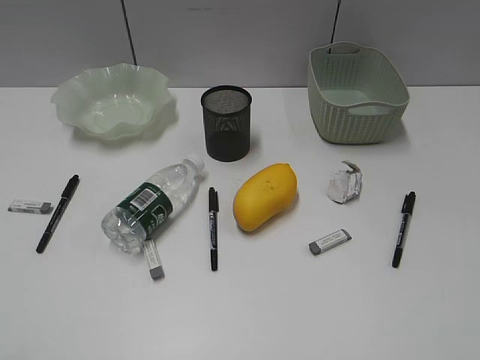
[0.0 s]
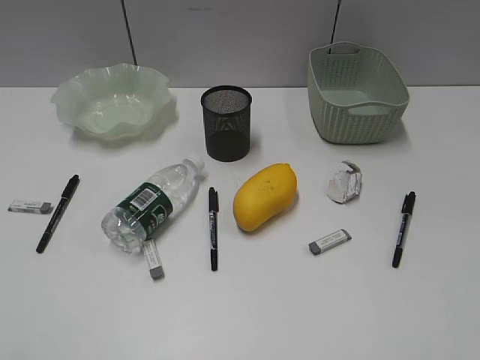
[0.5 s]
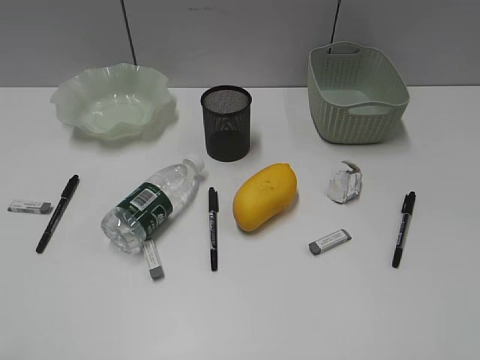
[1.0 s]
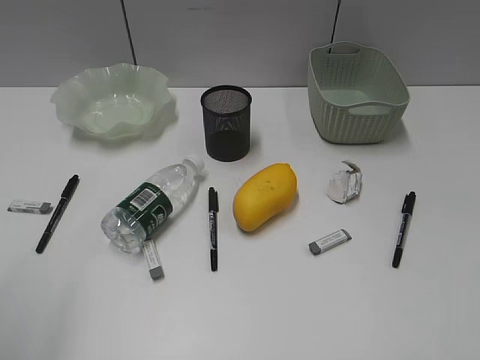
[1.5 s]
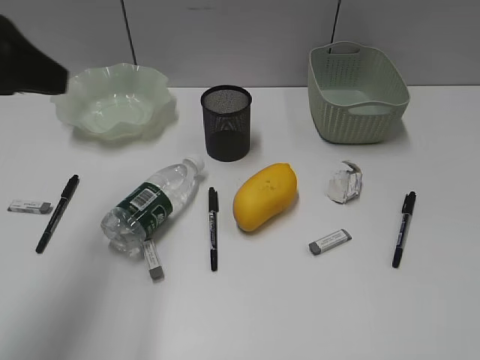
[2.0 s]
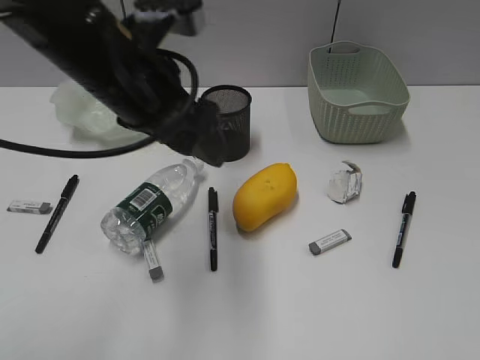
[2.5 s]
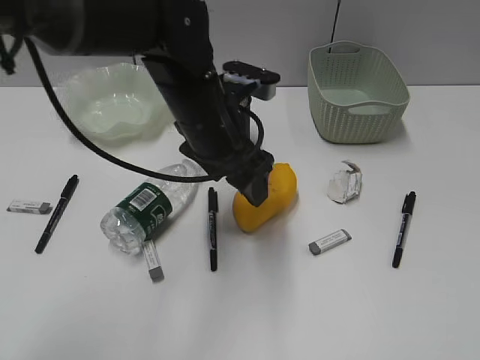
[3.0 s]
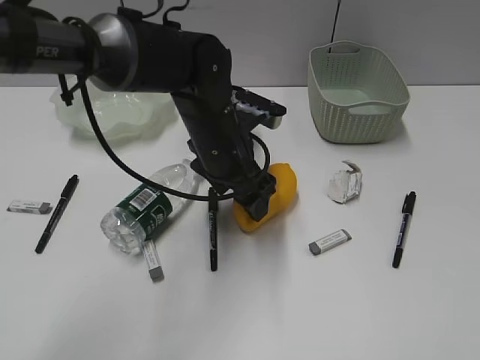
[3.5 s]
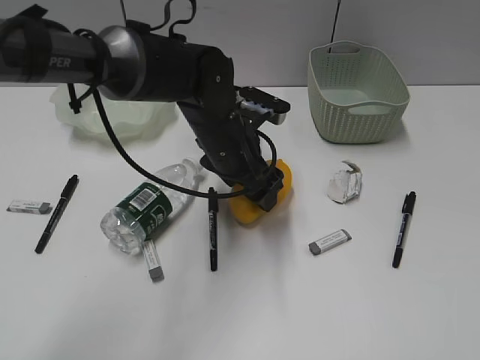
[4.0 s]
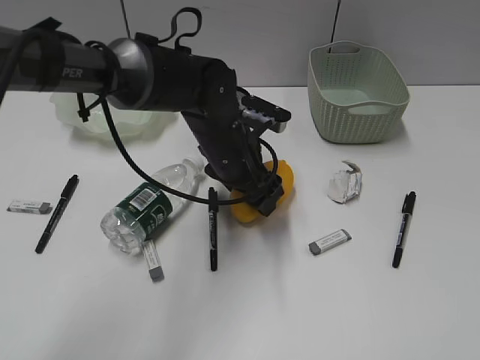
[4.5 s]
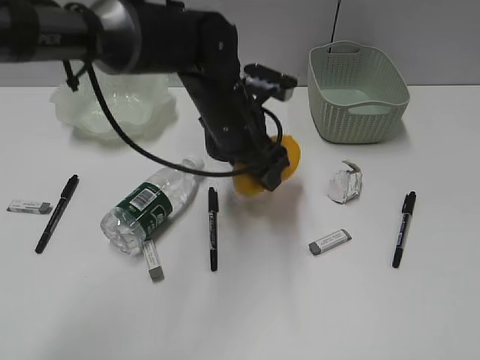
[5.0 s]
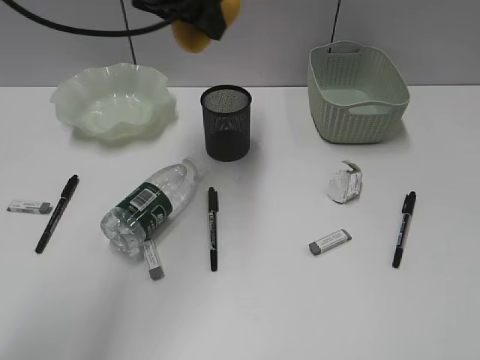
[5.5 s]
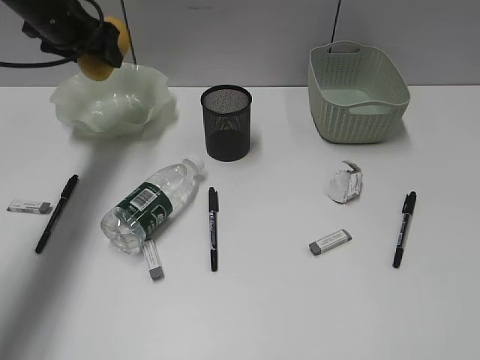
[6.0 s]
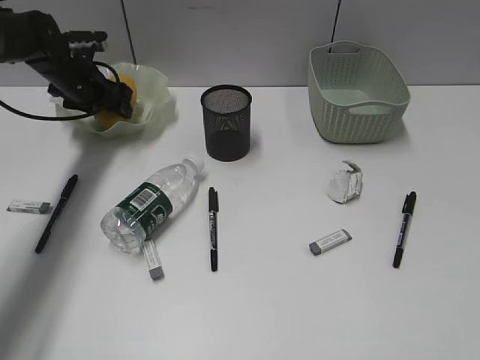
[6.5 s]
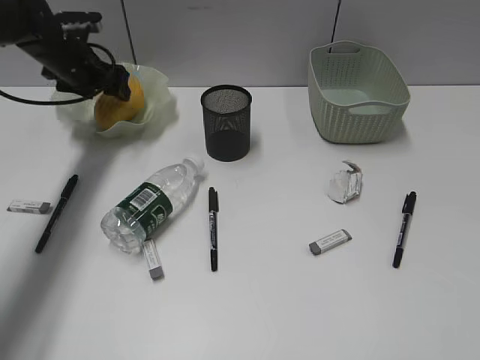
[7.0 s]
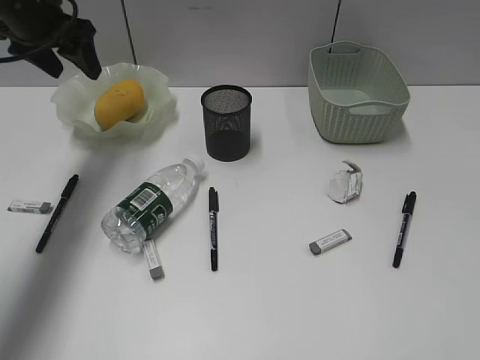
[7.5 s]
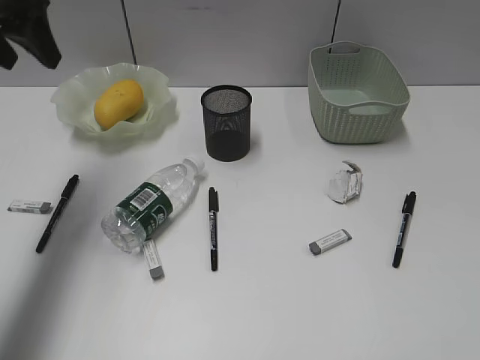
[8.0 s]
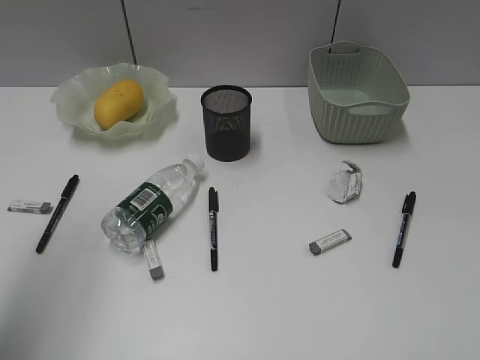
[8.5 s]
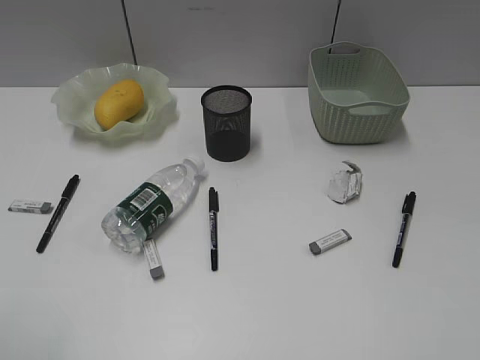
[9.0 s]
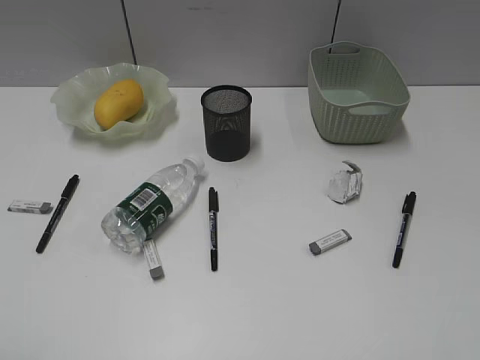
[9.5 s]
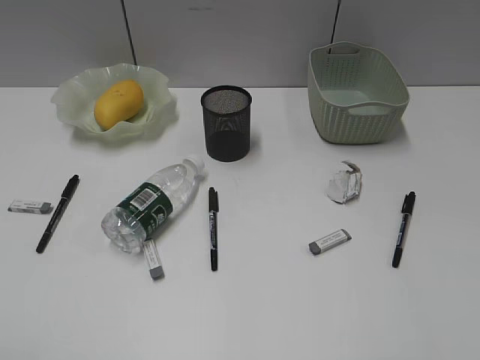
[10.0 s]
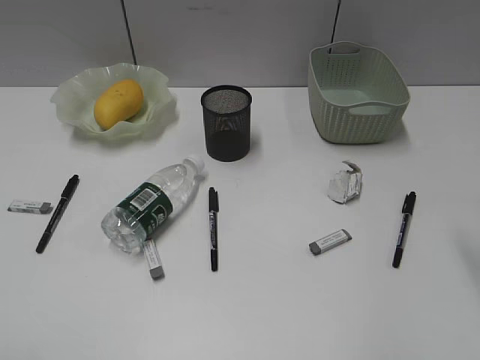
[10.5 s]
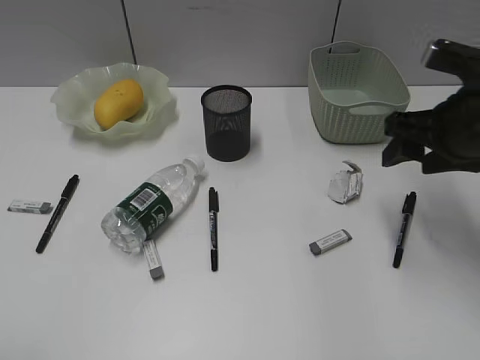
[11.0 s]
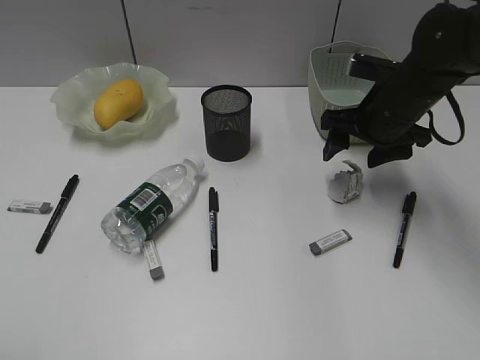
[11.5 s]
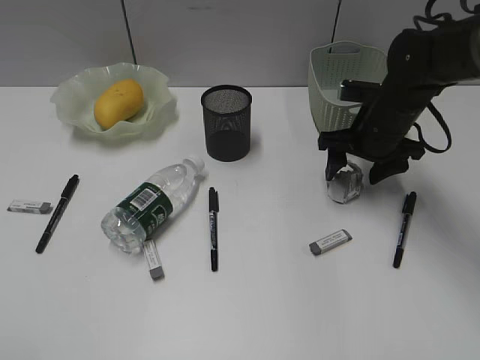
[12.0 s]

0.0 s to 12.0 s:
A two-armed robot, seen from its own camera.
Step, 1.5 to 4.5 s: Grasp the mango with left gripper.
Step, 5.0 to 7.0 s: Place the mango in the plate with left gripper.
2.0 to 4.0 s: The left gripper heads to the right, downward and forward, covering roughly 30 cm.
4.0 to 6.0 s: The left gripper travels to the left, forward and upward by roughly 30 cm.
6.0 to 8.0 s: The left gripper heads backward and upward, covering about 15 cm.
8.0 to 10.0 s: The left gripper travels backward by roughly 35 cm.
10.0 to 12.0 s: The right gripper moves forward and downward, roughly 35 cm.

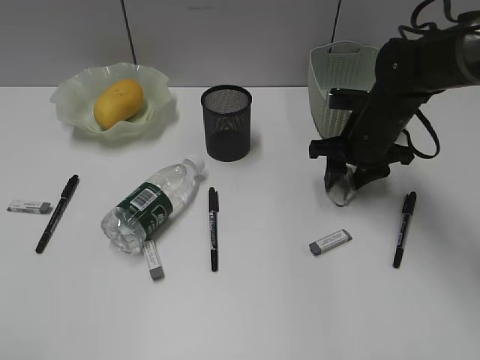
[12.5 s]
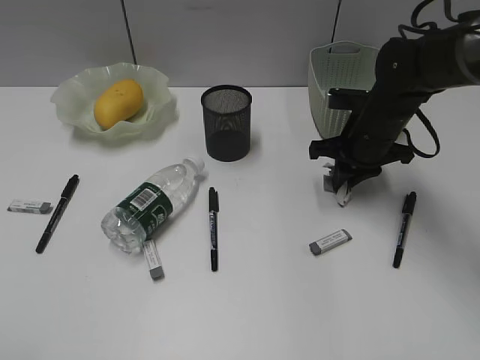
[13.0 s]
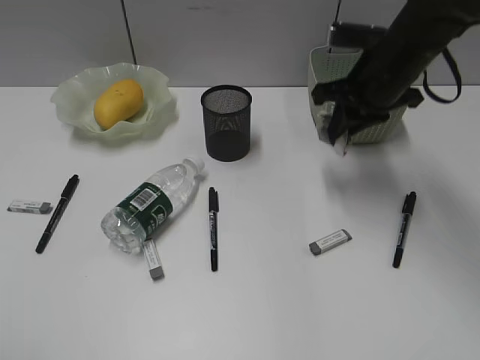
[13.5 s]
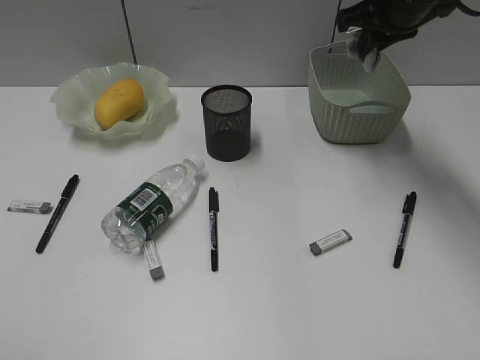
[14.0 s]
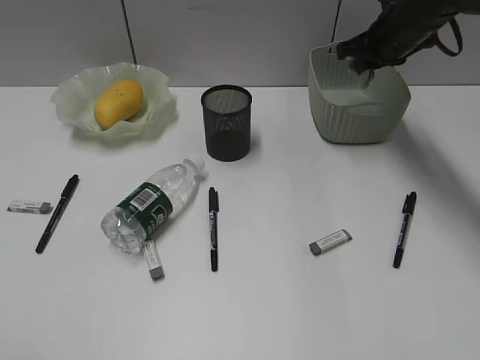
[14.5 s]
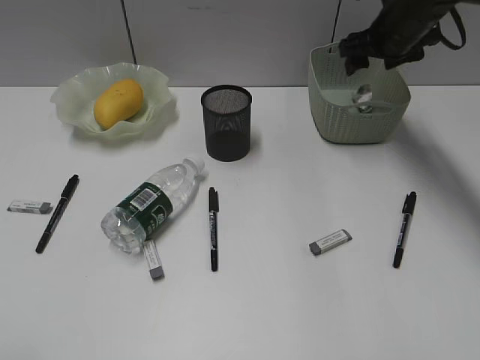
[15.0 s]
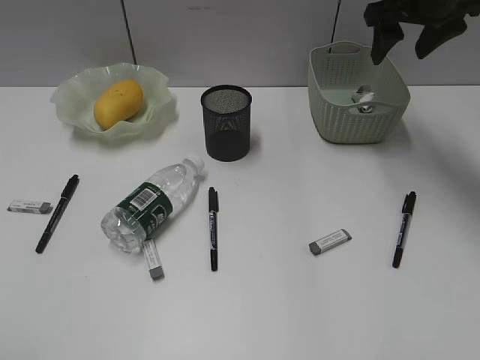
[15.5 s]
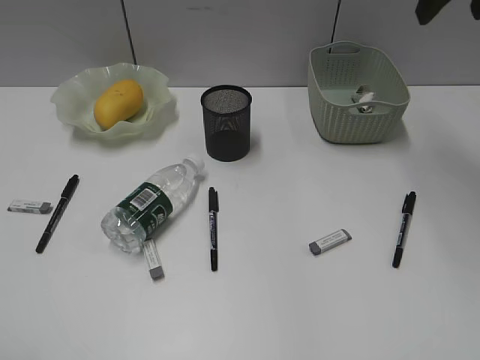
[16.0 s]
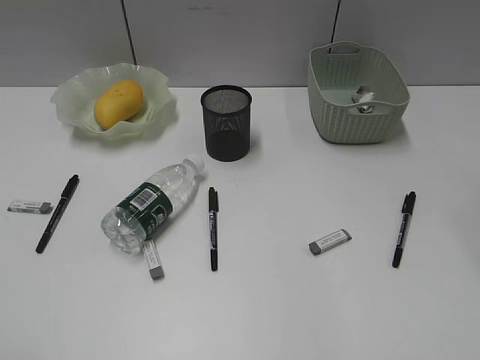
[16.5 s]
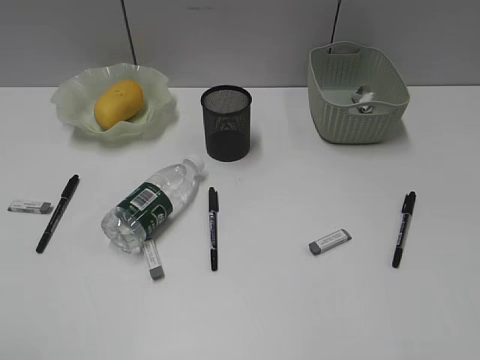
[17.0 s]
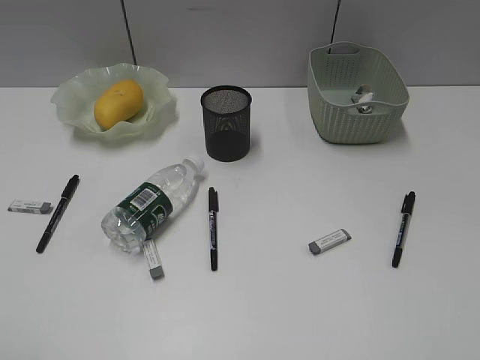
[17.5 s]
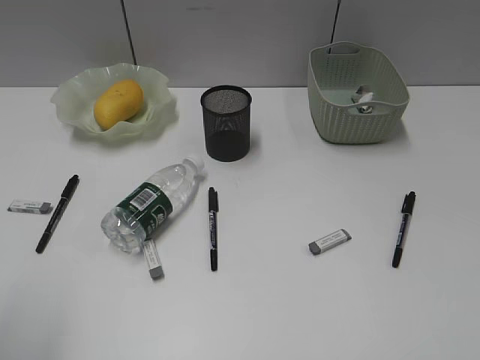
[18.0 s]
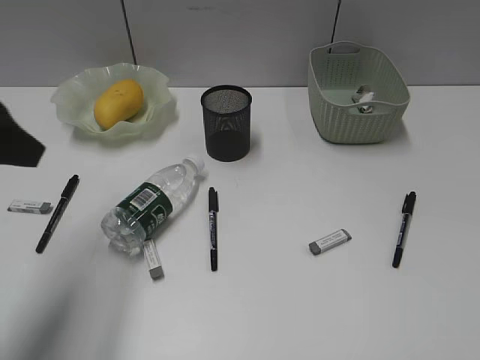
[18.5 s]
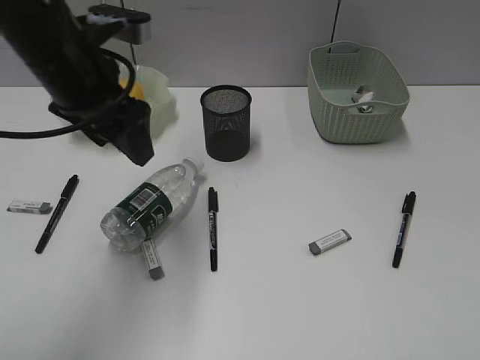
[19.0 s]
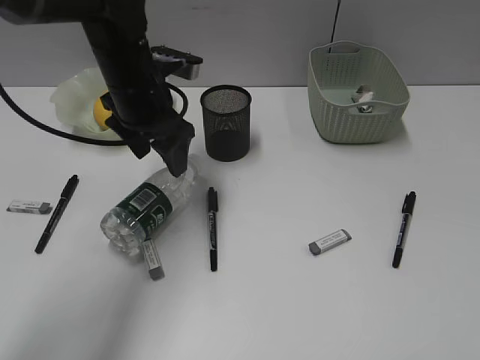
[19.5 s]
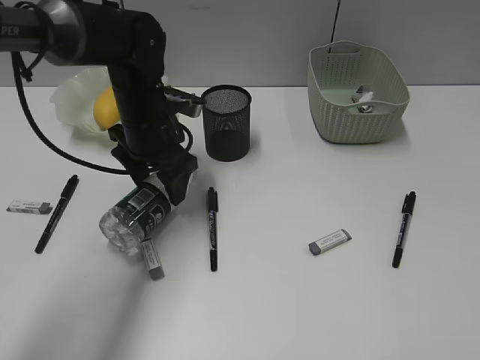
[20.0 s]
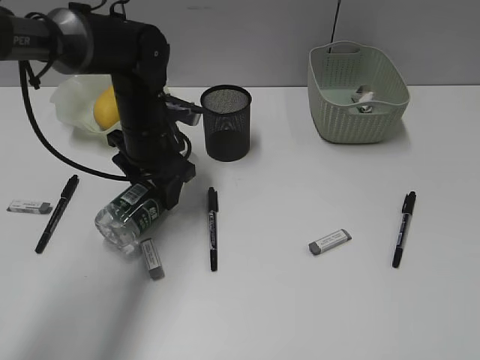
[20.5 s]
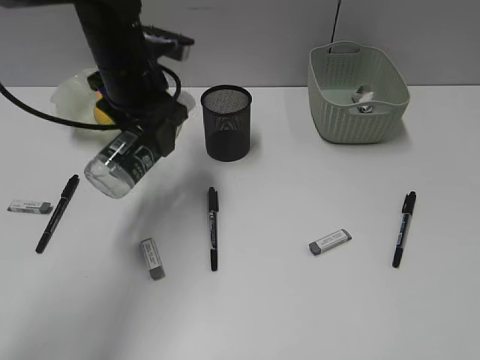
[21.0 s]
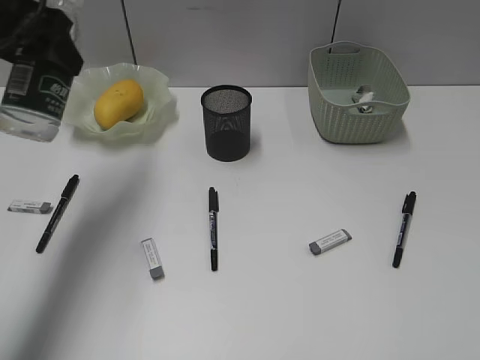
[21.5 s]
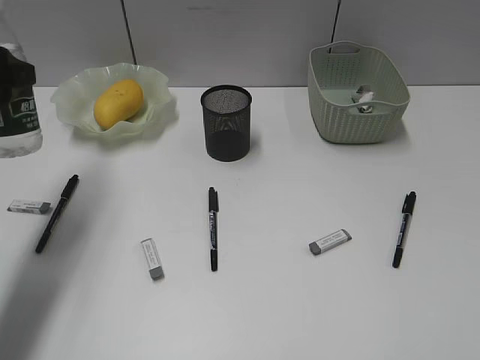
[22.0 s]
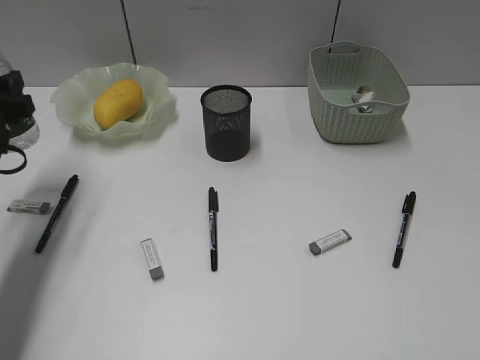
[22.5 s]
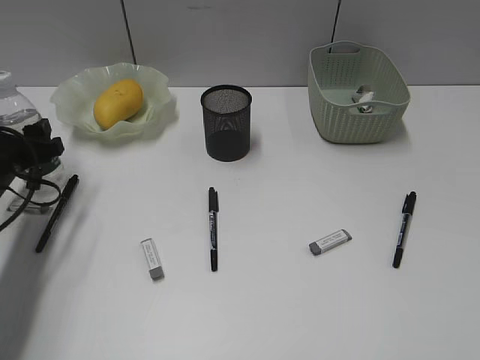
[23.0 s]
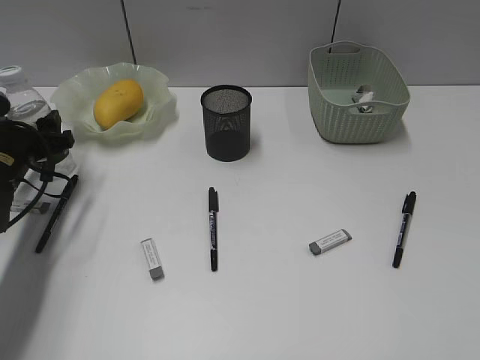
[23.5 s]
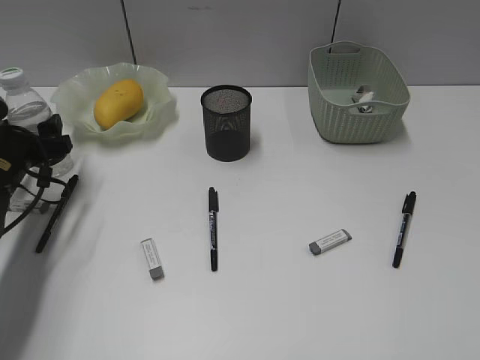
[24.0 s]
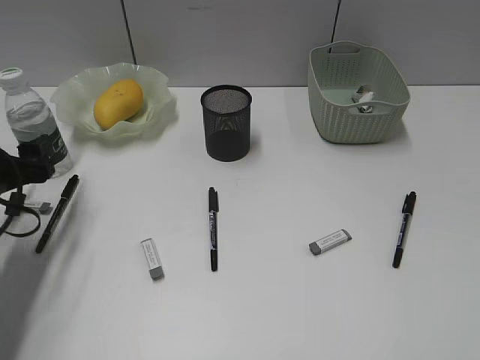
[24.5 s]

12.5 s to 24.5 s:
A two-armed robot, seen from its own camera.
Step, 13.0 to 14.5 s: Place the waste paper in the basket with right gripper.
Step, 15.0 to 20.5 s: Grasp the bottle with left gripper.
Step, 21.0 to 24.0 s: Stand the bottle with left gripper.
12.5 to 14.5 s: The right gripper goes approximately 15 cm forward and upward.
14.5 to 16.5 s: The right gripper is displaced backward and upward by about 35 cm, and opens its fingers.
16.5 to 18.5 s: The left gripper travels forward by some 20 cm.
18.5 to 20.5 s: The left gripper heads forward, downward and to the right, covering roughly 25 cm.
20.5 to 22.5 s: The left gripper travels to the left and backward by approximately 20 cm.
22.5 to 24.5 s: The left gripper moves downward, about 5 cm.

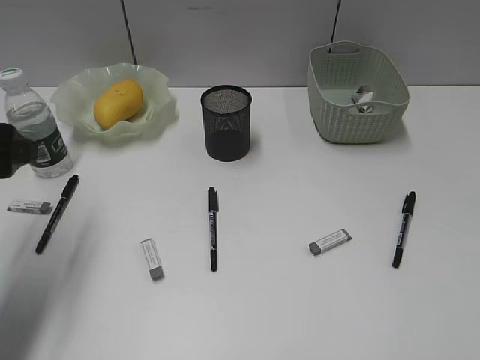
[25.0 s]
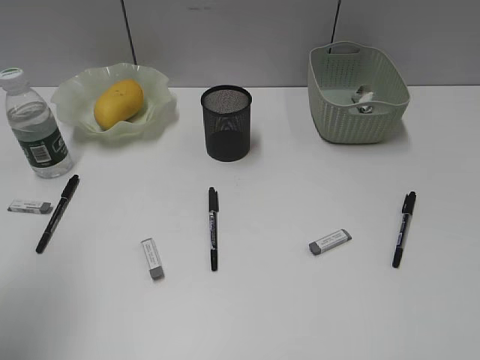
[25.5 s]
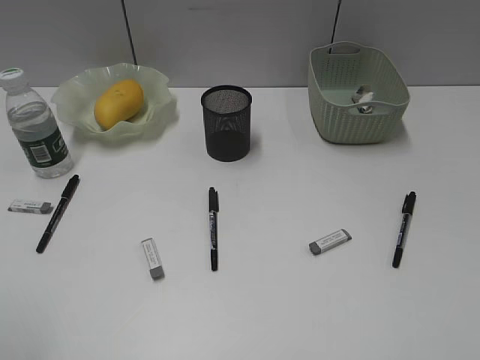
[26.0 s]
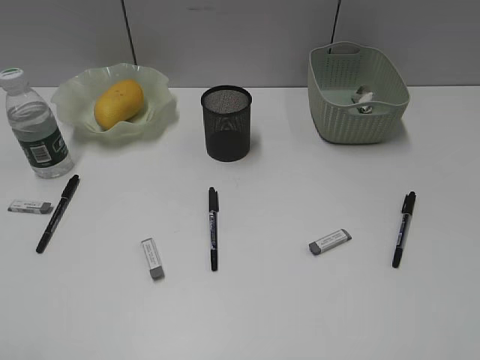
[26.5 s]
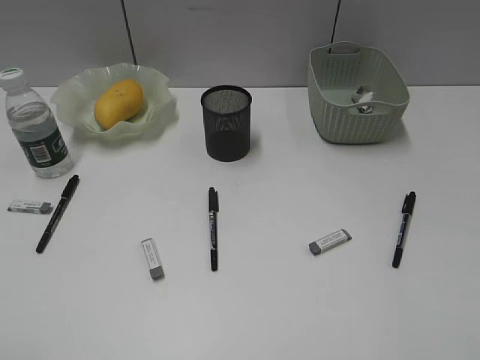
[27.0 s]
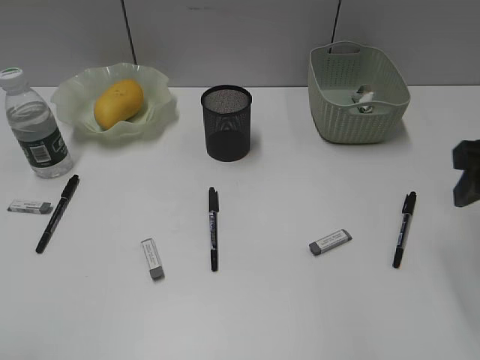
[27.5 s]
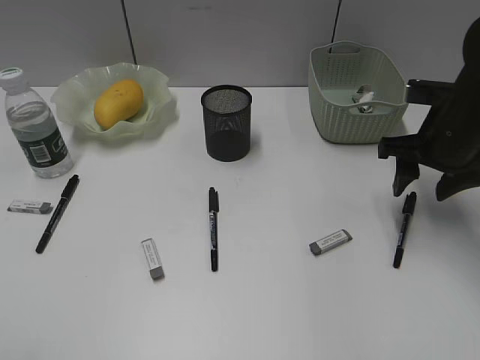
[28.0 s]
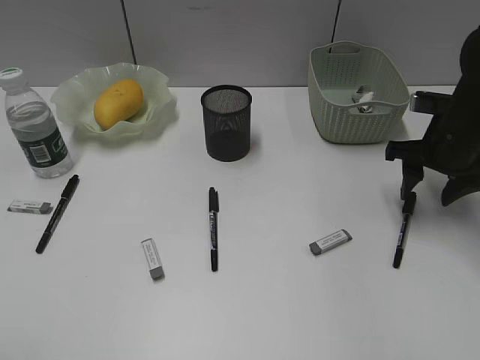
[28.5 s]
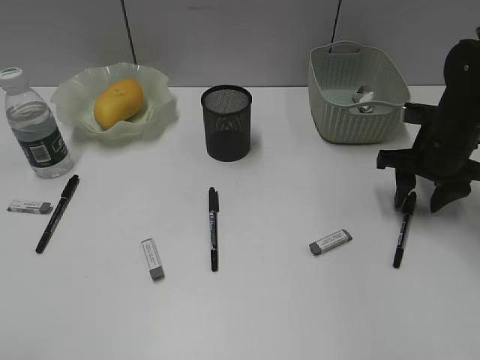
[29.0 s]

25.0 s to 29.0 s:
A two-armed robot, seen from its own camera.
25.0 to 27.0 s: The left gripper is displaced backward by some 25 cm.
27.0 to 29.0 s: The right gripper shifts about 35 cm forward and downward.
